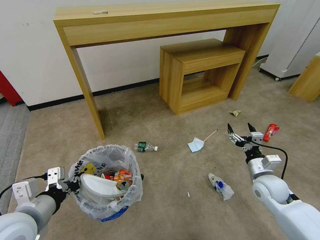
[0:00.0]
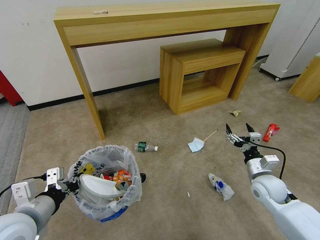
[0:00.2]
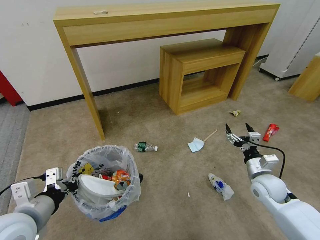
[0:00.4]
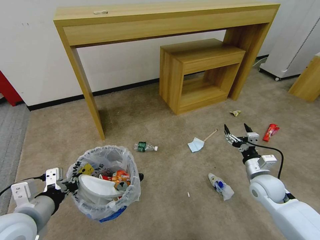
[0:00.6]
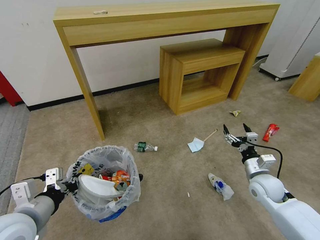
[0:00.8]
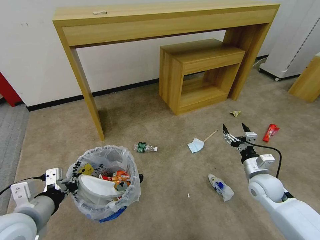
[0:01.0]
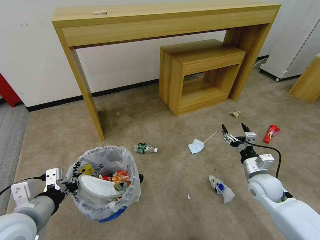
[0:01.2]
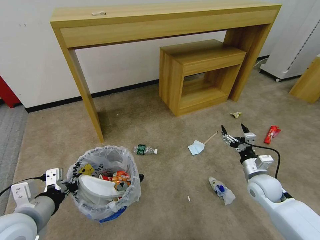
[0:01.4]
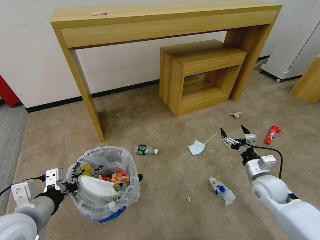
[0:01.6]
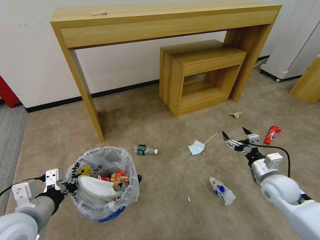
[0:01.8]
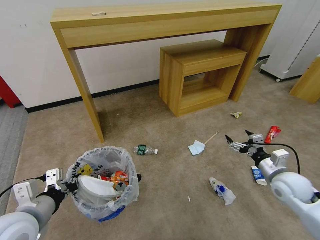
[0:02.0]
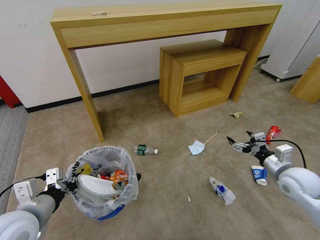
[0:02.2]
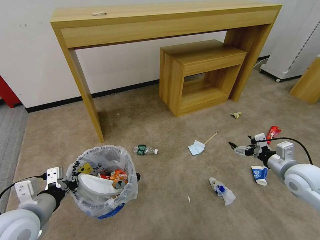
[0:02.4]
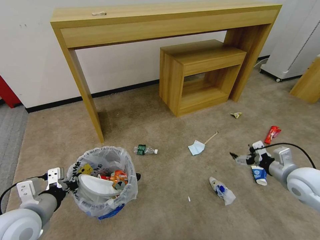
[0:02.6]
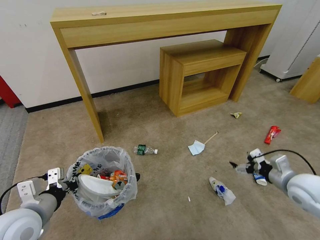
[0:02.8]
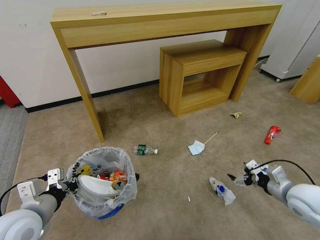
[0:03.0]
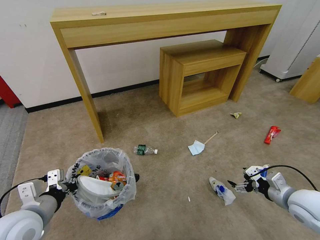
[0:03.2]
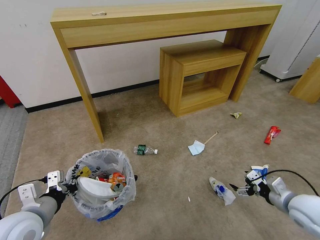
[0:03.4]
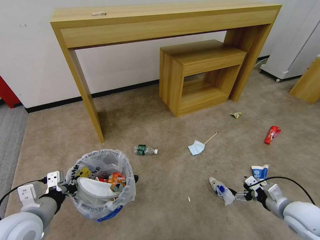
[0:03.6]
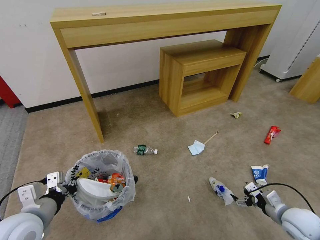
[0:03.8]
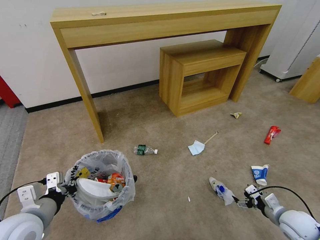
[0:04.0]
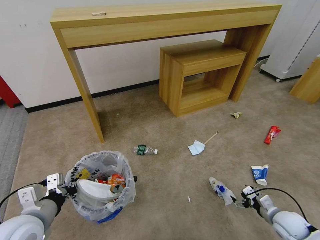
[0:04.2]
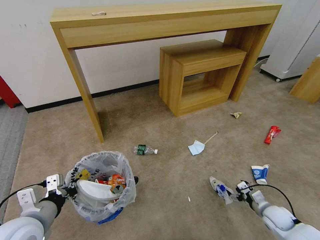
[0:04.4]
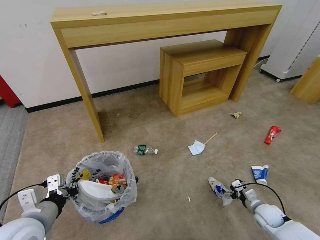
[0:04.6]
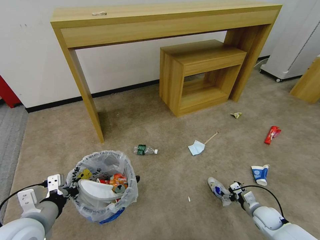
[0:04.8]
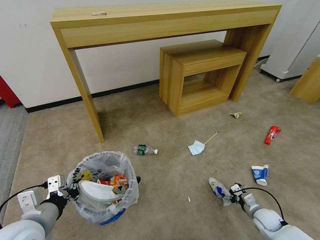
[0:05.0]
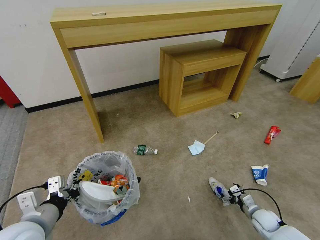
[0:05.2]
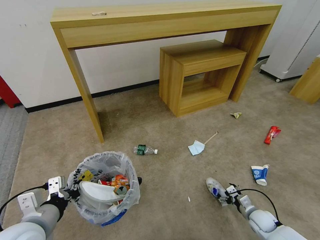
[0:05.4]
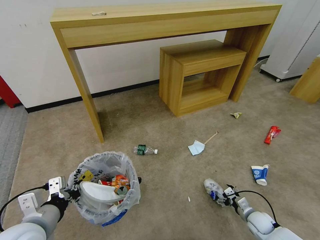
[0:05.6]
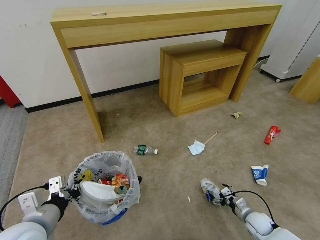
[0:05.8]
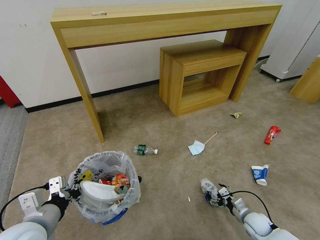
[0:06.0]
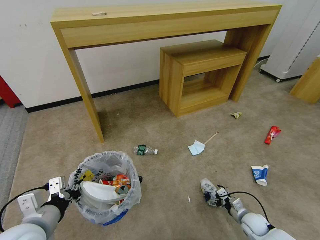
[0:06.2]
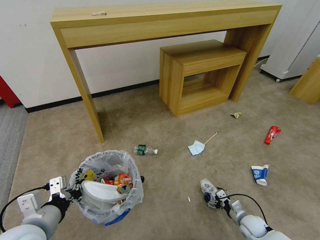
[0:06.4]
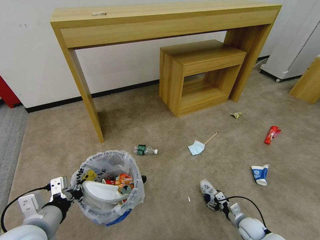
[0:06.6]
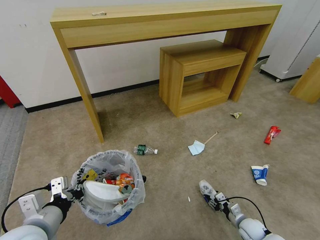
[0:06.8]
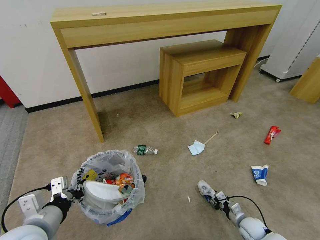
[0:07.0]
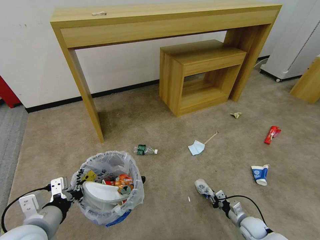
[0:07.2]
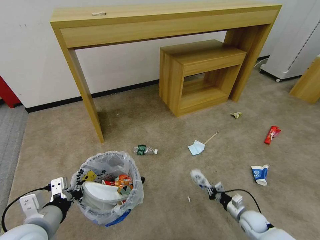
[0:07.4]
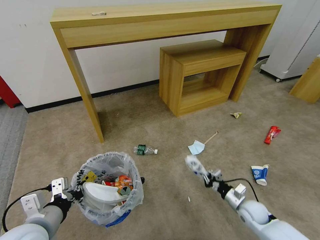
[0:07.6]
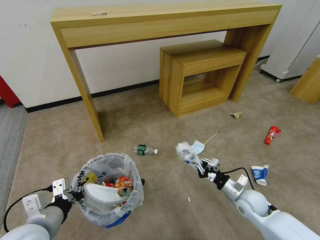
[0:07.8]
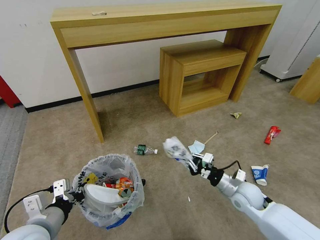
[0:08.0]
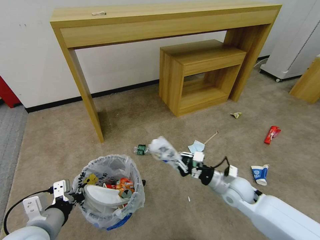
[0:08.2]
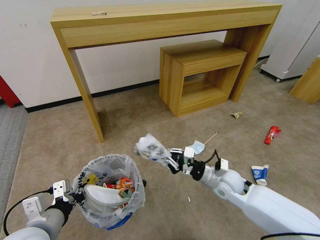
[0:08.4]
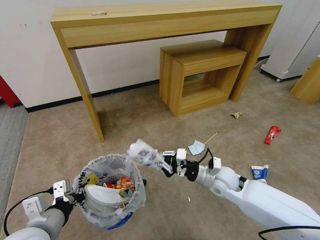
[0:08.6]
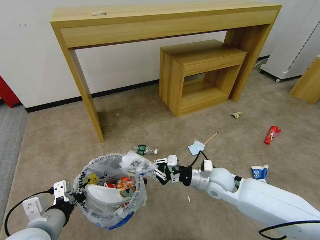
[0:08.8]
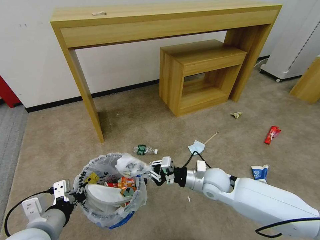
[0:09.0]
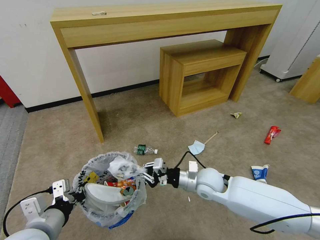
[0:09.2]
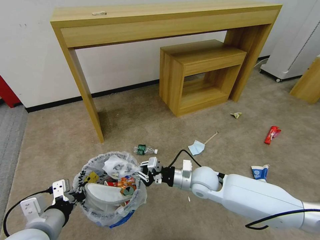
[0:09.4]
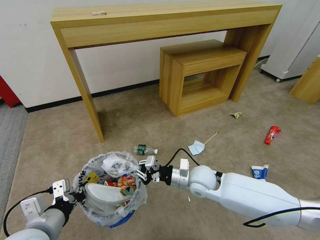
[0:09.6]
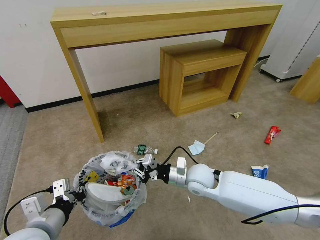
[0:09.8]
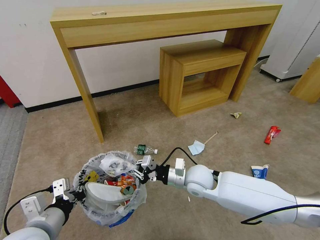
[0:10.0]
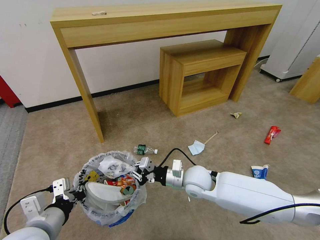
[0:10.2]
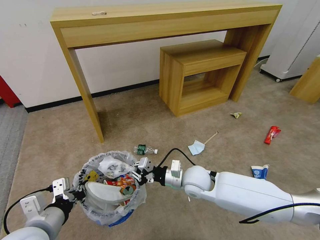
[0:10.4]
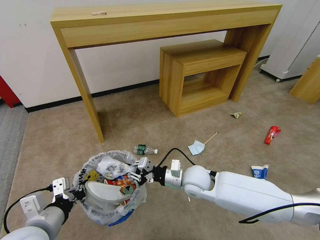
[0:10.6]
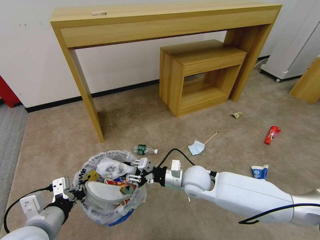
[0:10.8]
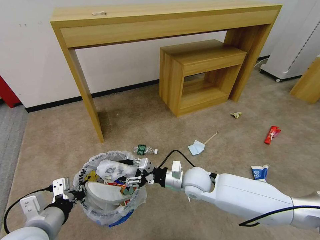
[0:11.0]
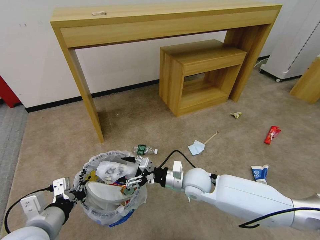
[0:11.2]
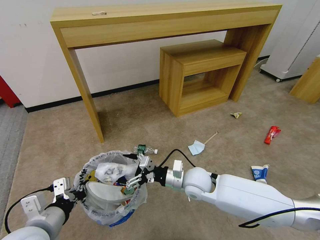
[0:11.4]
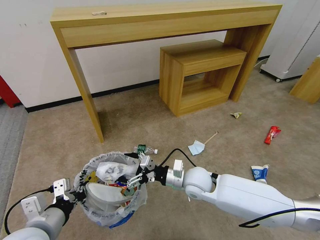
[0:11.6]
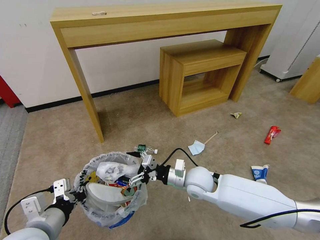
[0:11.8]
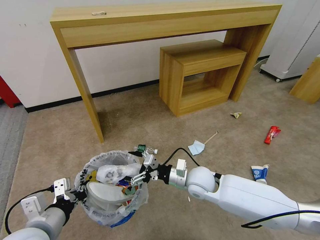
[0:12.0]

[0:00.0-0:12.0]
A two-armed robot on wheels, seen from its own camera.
Task of the whole recording: Pick up the trash bin and place the garbage on the floor into it.
0:00.0 to 0:01.6: The grippers stay close to where they were, moving slightly.
0:01.6 to 0:03.0: The right gripper goes about 10 cm backward and upward.
0:03.0 to 0:04.4: The right gripper goes some 20 cm downward.
0:04.4 to 0:06.0: The right gripper is displaced to the left and downward by some 10 cm.
0:06.0 to 0:07.6: The right gripper ends up about 5 cm from where it was, and closes its fingers.
0:07.6 to 0:09.0: The right gripper travels to the left and upward by approximately 25 cm.
0:09.0 to 0:10.4: The right gripper is displaced to the left by approximately 5 cm.
0:10.4 to 0:12.0: The right gripper opens up.

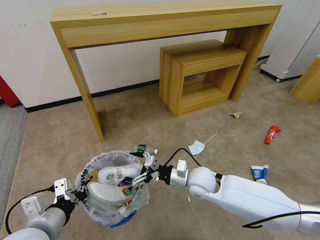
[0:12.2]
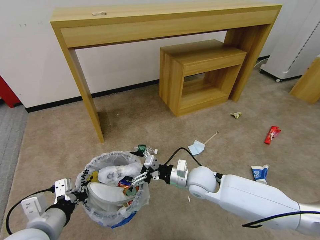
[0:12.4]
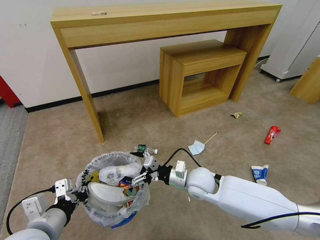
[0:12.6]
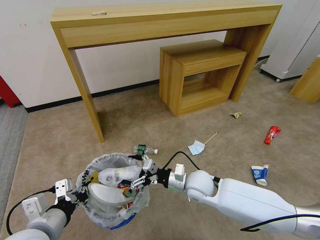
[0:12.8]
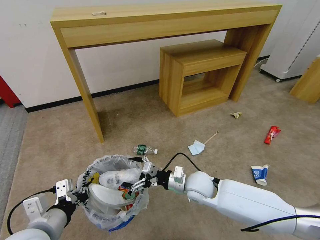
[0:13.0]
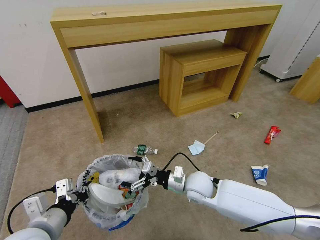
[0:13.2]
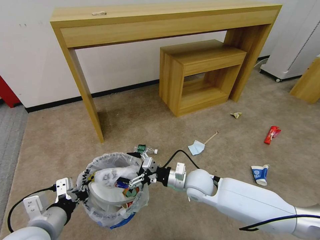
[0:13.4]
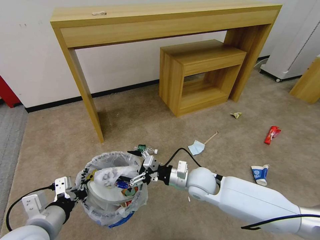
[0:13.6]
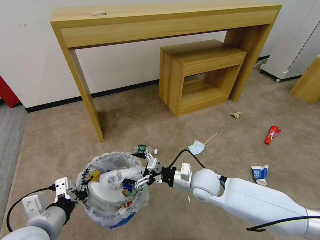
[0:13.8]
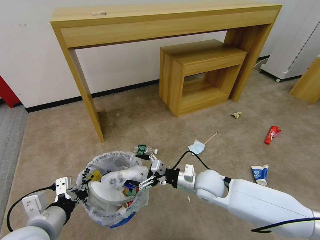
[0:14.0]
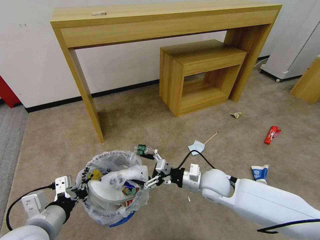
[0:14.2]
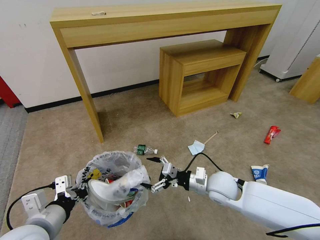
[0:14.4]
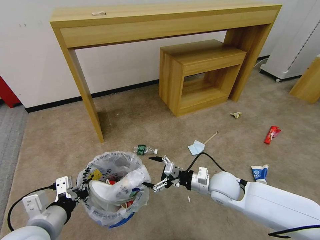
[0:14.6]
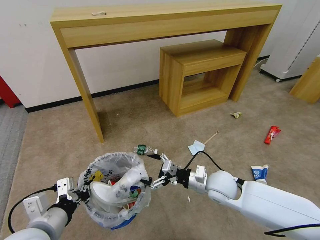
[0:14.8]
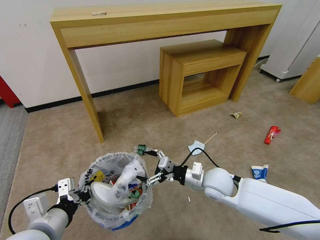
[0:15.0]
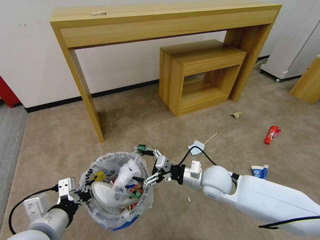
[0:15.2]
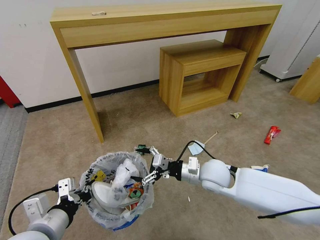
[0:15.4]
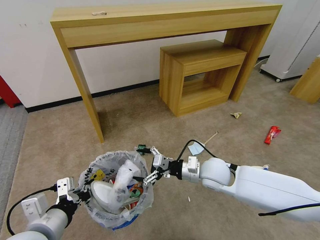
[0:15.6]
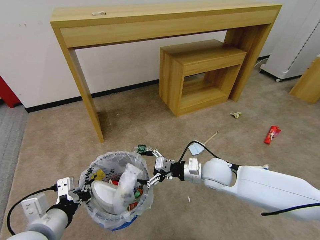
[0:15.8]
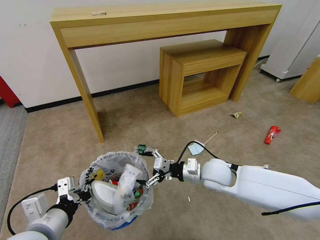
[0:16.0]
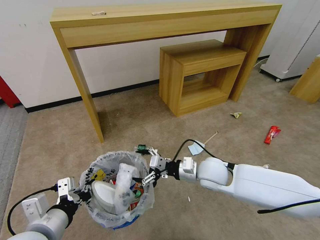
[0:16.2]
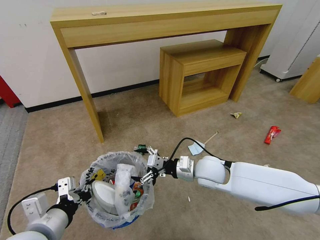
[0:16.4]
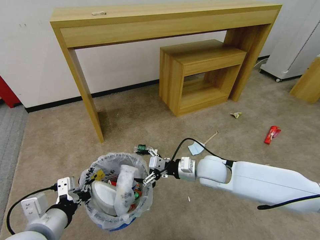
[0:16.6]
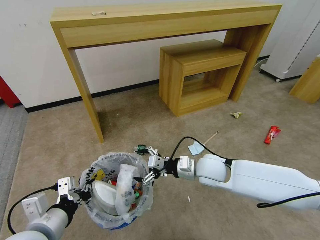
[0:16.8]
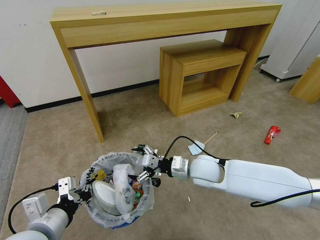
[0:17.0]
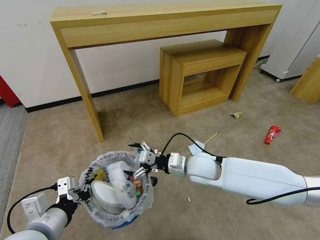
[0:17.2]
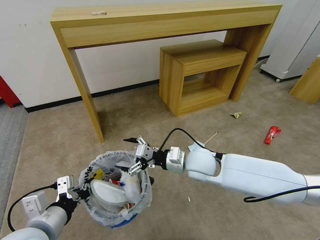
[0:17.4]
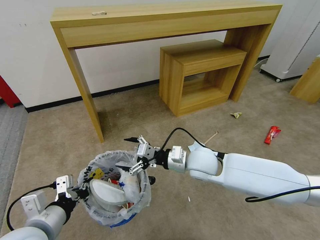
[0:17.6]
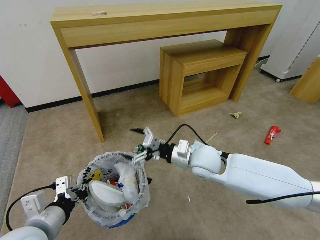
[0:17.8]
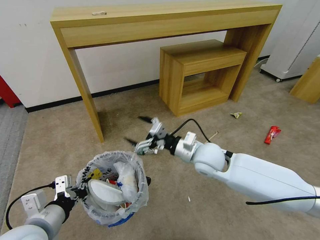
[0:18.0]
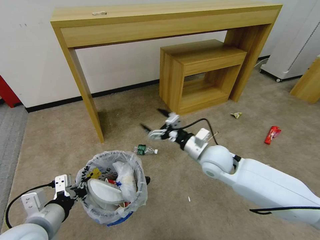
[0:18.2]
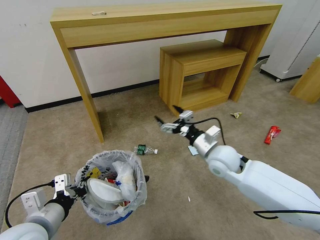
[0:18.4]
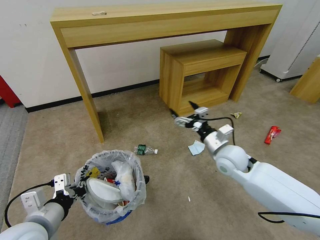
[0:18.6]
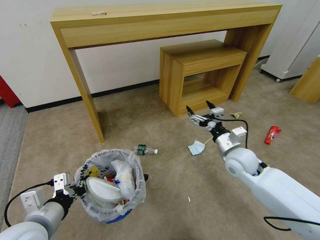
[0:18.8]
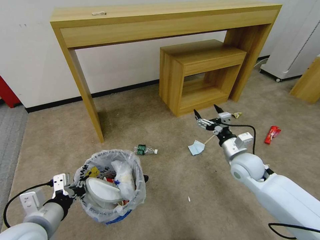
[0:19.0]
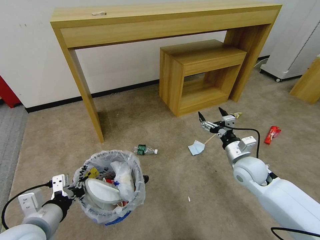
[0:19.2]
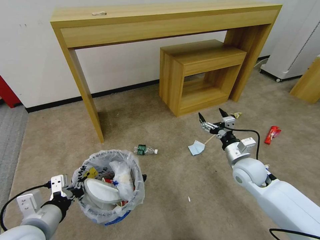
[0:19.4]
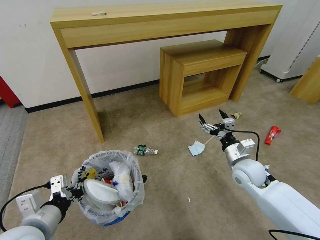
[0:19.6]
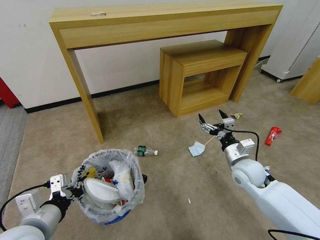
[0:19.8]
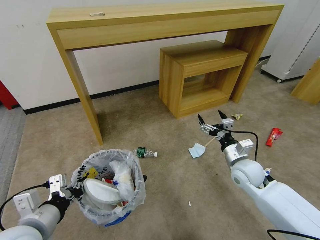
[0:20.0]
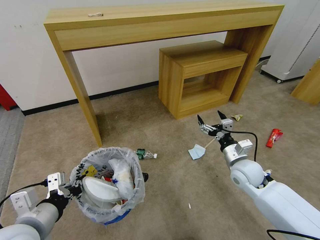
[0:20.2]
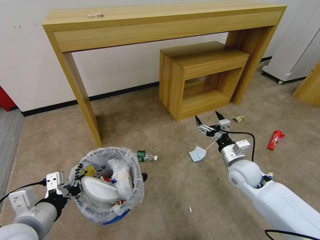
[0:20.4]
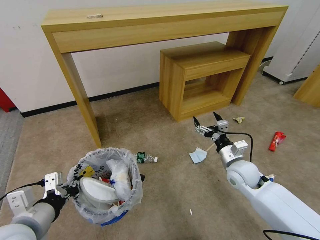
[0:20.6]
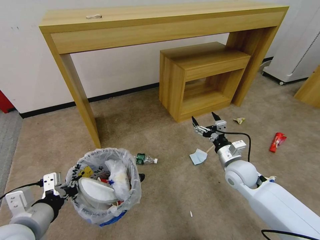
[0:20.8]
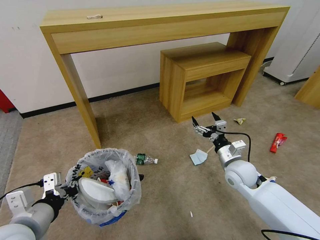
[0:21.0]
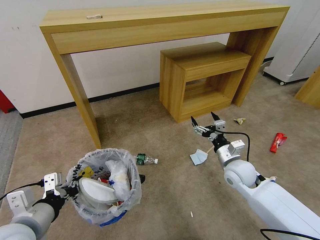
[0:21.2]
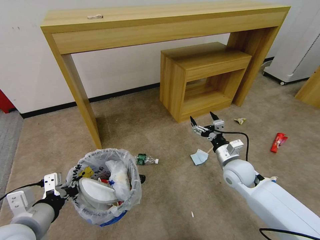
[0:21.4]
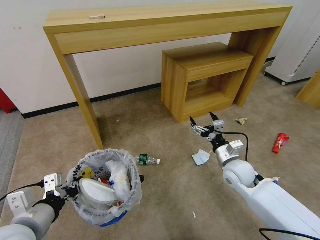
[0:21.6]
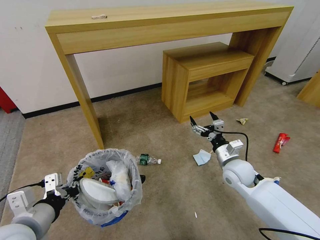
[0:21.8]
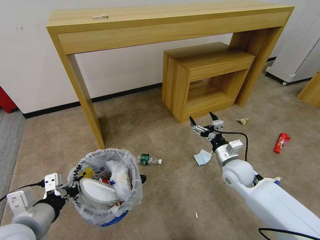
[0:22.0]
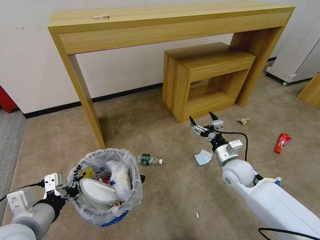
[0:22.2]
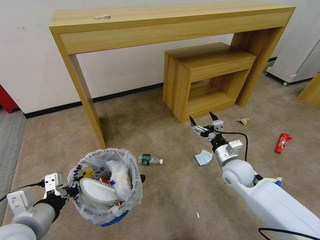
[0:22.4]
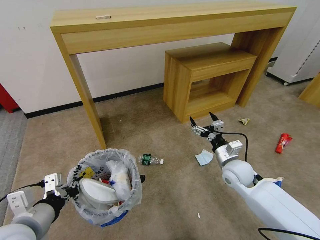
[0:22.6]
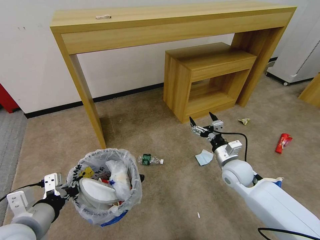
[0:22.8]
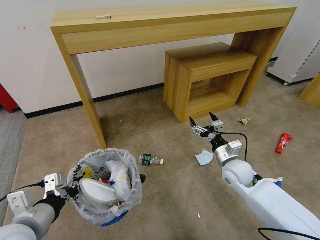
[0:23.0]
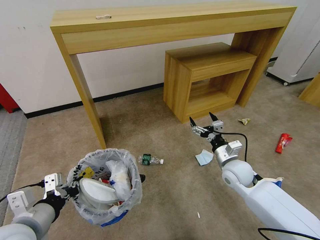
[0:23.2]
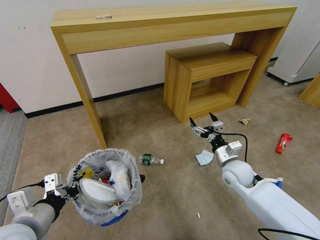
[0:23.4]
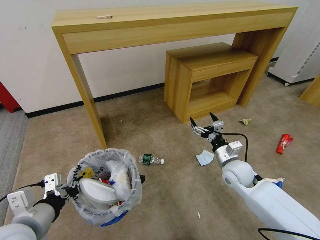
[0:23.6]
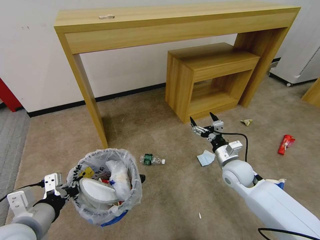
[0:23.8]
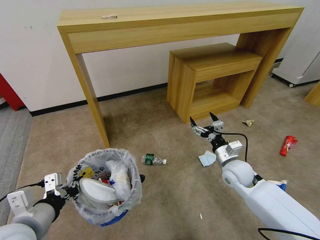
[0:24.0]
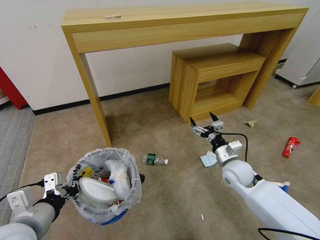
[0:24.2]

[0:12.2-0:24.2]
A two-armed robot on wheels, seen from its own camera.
Task of the whole recording: Pick up the trash bin and place the garbage on the floor into it.
0:12.2 to 0:13.8: The grippers make only small movements.
0:13.8 to 0:16.6: The grippers make only small movements.
0:18.2 to 0:19.8: The right gripper goes about 15 cm to the right and downward.
0:21.2 to 0:24.2: The two grippers keep their place.
